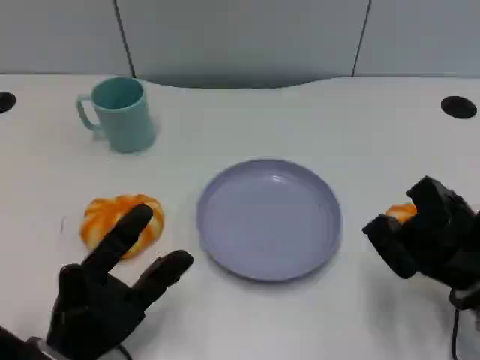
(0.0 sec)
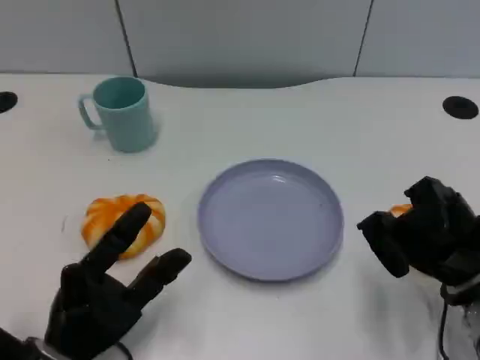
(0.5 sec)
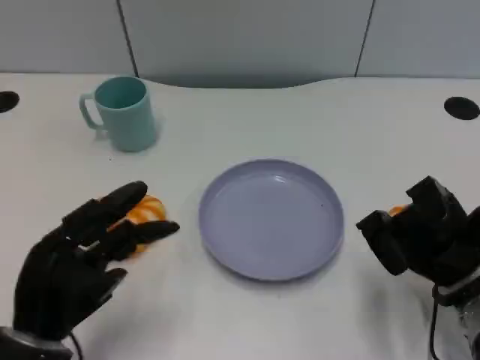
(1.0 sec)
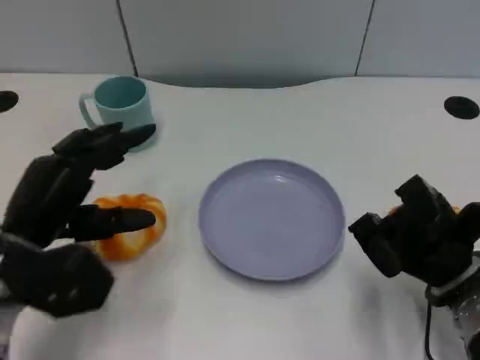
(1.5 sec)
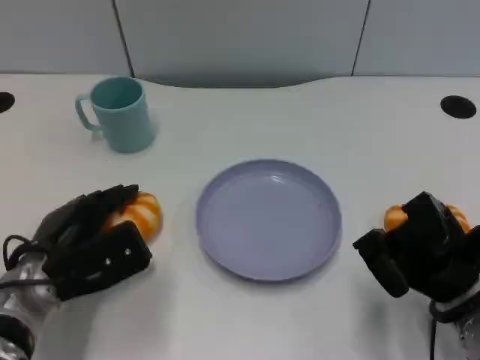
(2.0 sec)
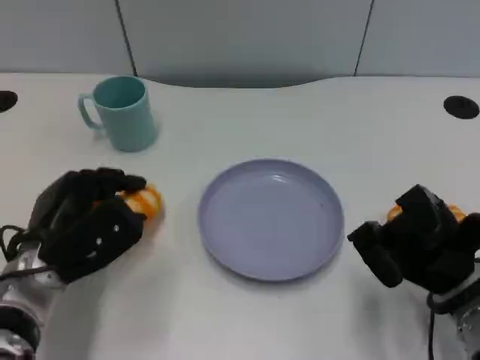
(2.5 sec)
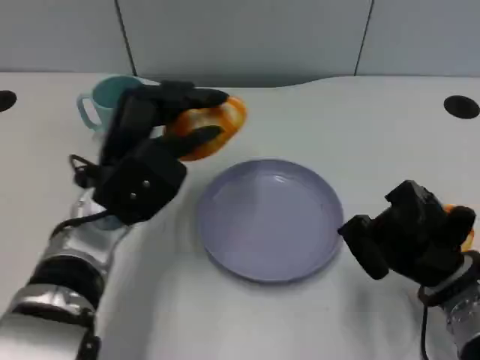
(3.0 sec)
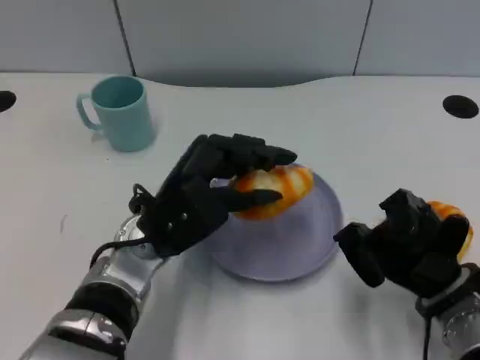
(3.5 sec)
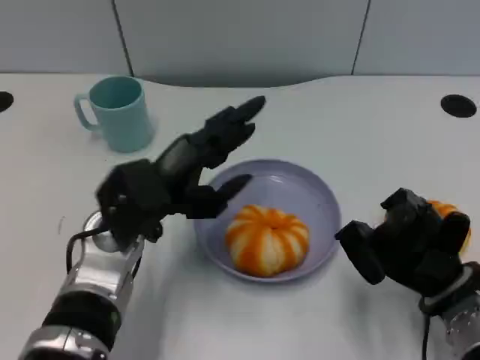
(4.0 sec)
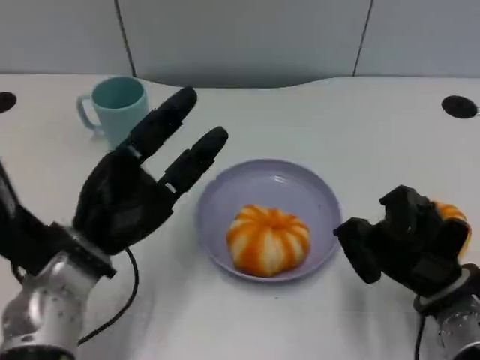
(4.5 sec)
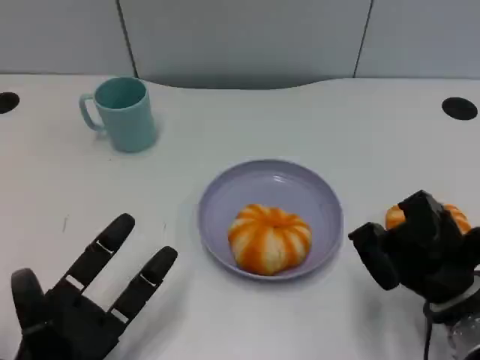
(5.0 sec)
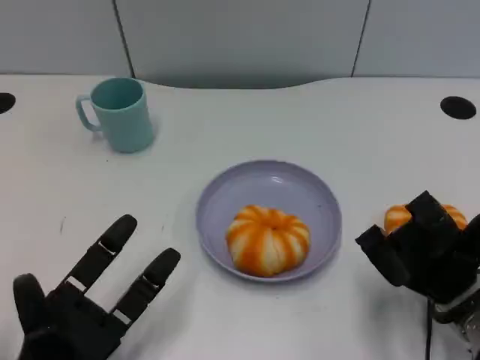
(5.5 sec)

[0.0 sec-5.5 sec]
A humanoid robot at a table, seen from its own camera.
Task of the whole recording: Grasp the bread from the table and place it into the plate.
0.0 sec to 2.0 sec: The left hand shifts some 10 cm forward.
2.0 sec to 3.5 sec: The left hand travels to the right by about 10 cm.
3.5 sec to 5.5 sec: The left hand shifts approximately 20 cm to the left, backward and downward.

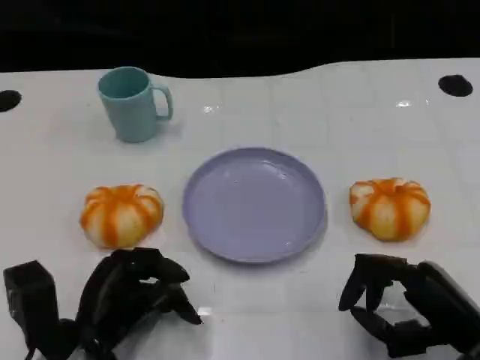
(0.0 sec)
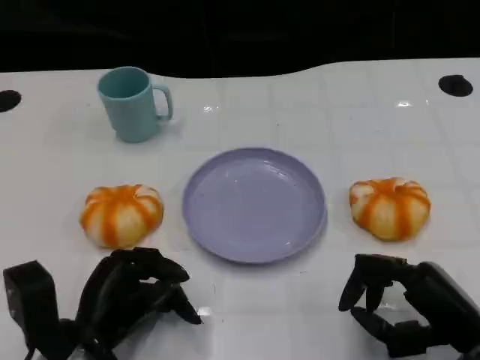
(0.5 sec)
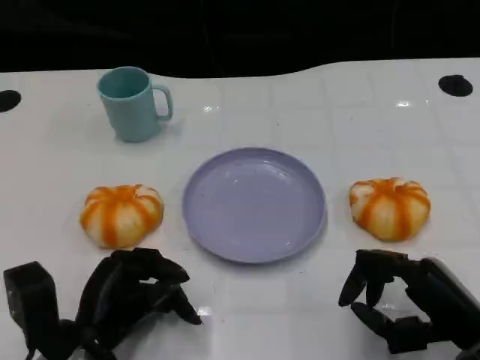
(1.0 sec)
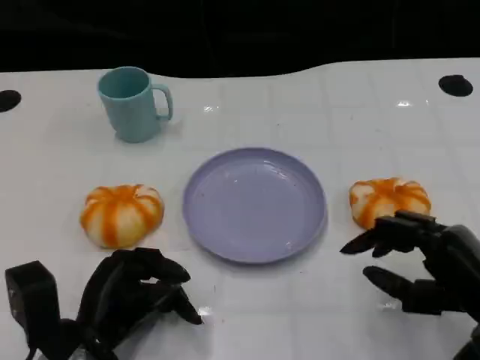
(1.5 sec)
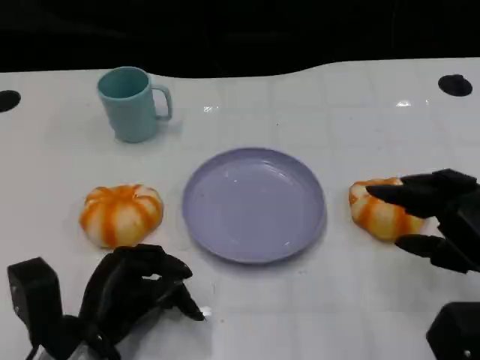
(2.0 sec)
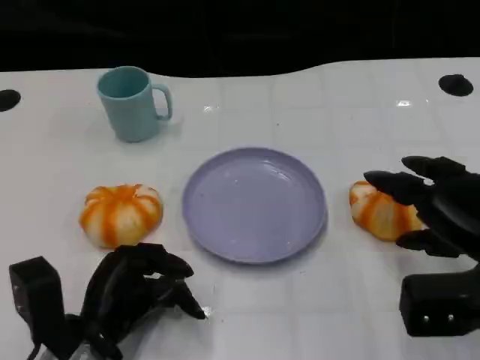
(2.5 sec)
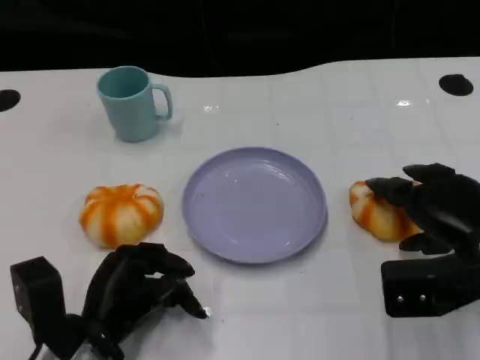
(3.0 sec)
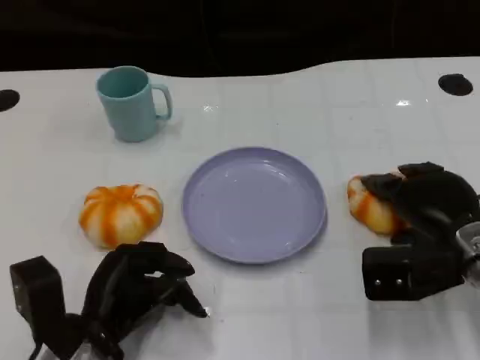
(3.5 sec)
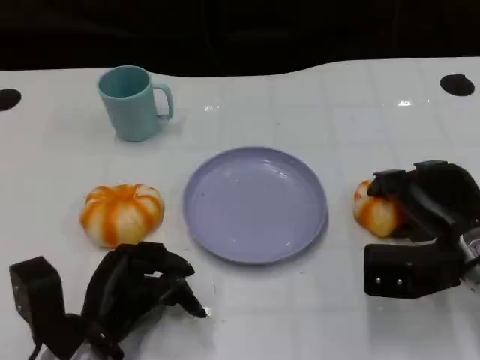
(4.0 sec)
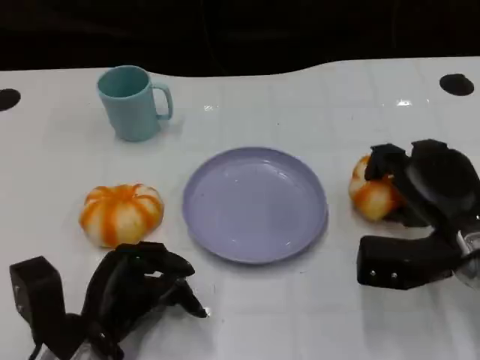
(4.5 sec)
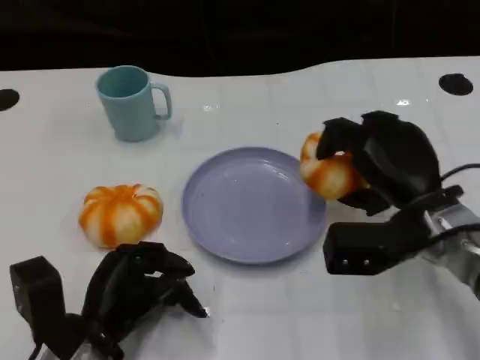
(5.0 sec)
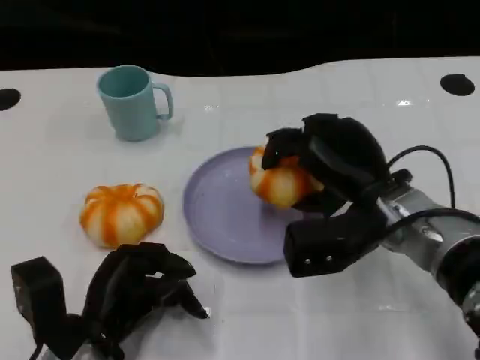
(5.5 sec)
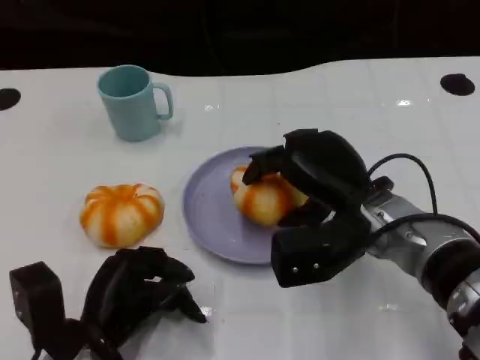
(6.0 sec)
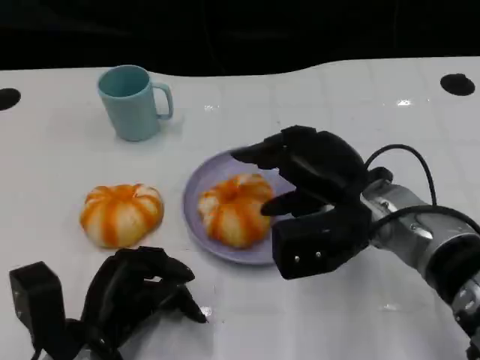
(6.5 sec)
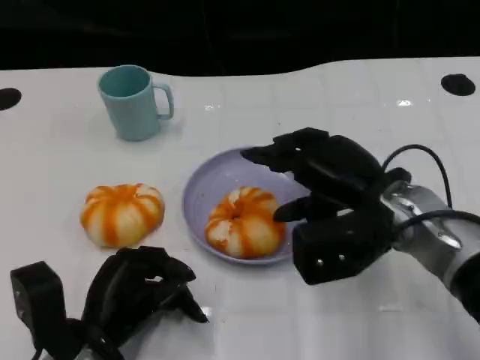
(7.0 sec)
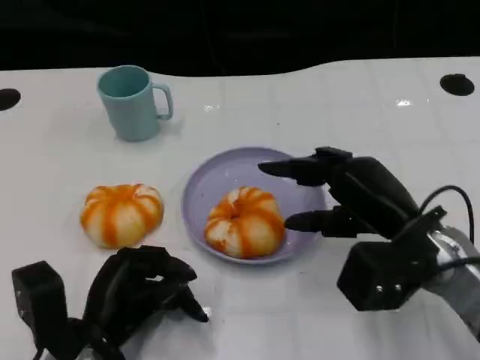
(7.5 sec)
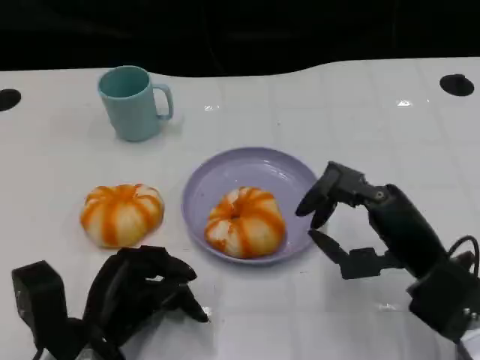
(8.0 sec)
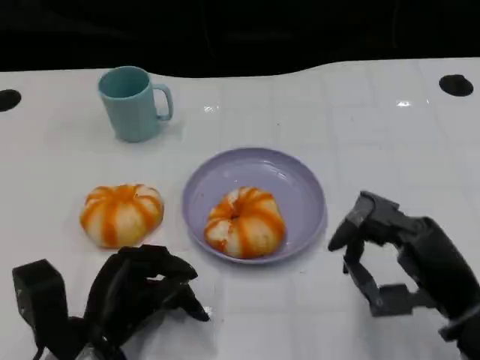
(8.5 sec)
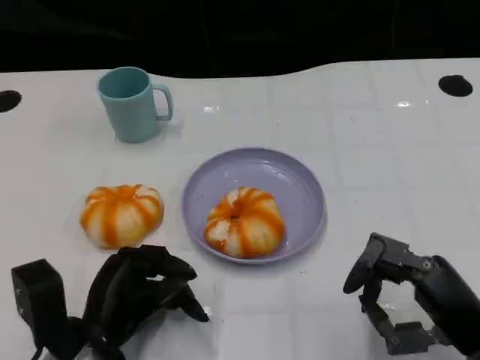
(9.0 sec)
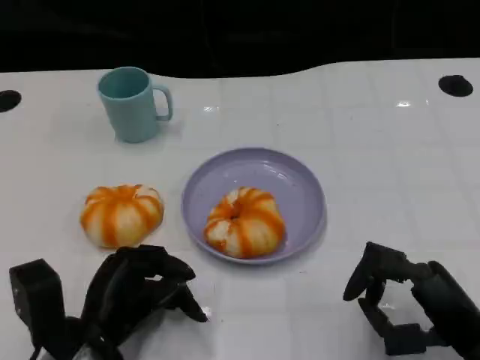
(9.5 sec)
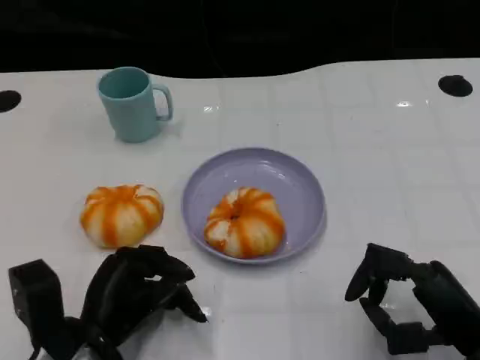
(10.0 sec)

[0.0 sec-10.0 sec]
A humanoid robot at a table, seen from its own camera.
Task of the whole recording: Grasp the bread from the table and place it into the plate.
0.0 sec to 2.0 sec: The right hand moves upward, approximately 5 cm.
2.0 sec to 4.0 sec: The right hand is displaced forward by some 5 cm.
4.0 sec to 6.0 sec: The right hand goes some 10 cm to the left.
6.0 sec to 8.0 sec: The right hand goes roughly 10 cm to the right and backward.
8.0 sec to 10.0 sec: The right hand is displaced backward by about 5 cm.
